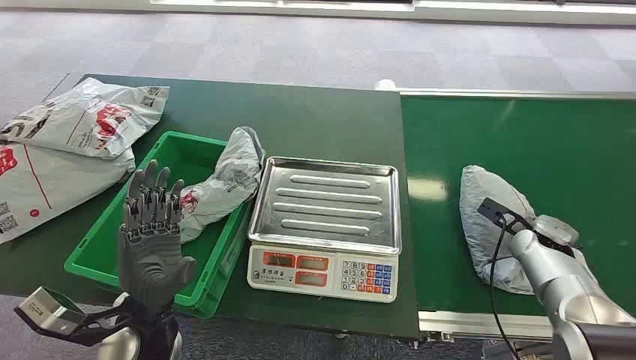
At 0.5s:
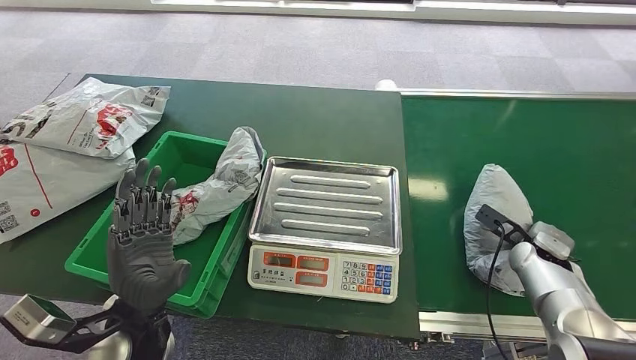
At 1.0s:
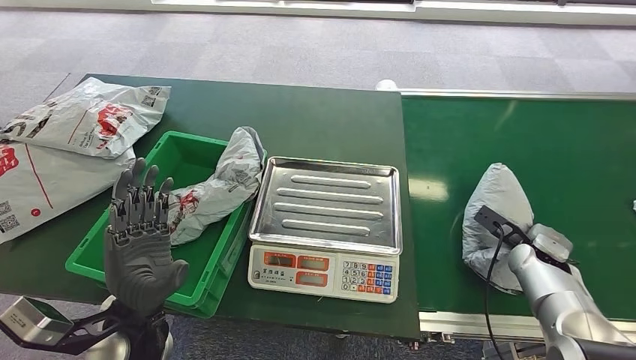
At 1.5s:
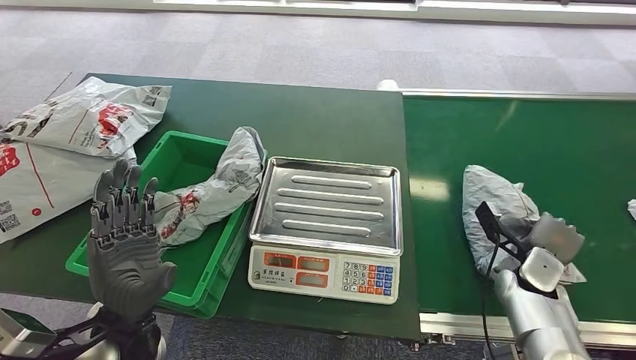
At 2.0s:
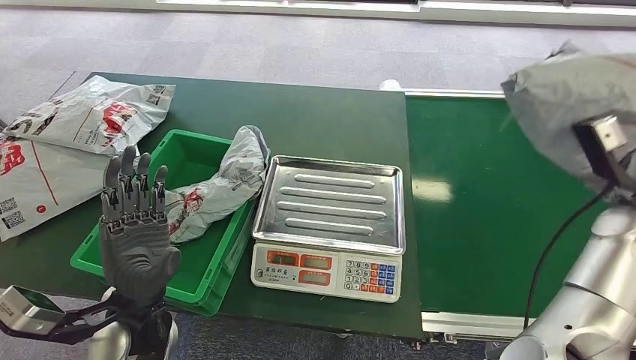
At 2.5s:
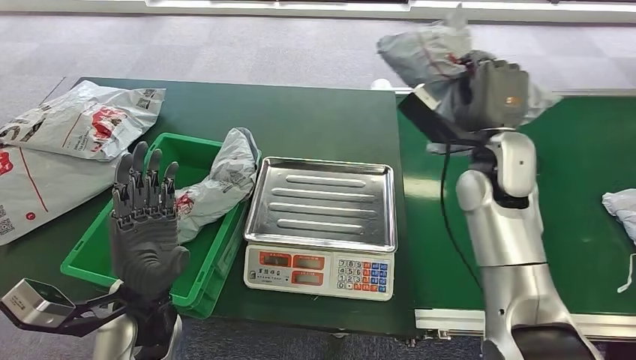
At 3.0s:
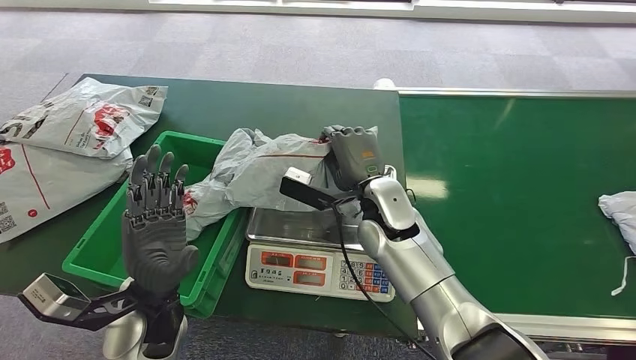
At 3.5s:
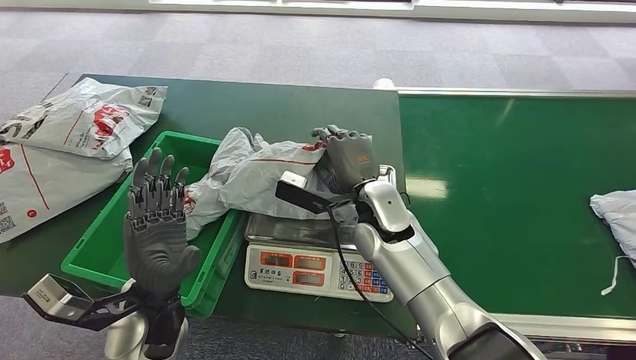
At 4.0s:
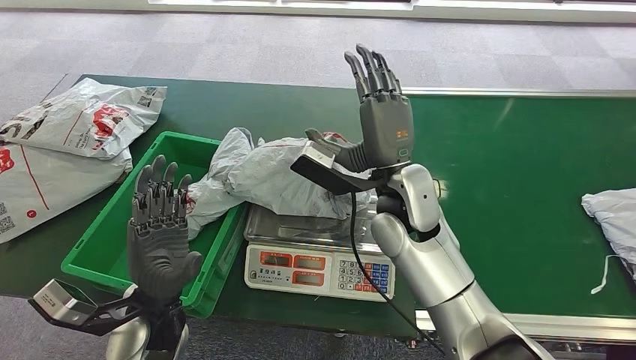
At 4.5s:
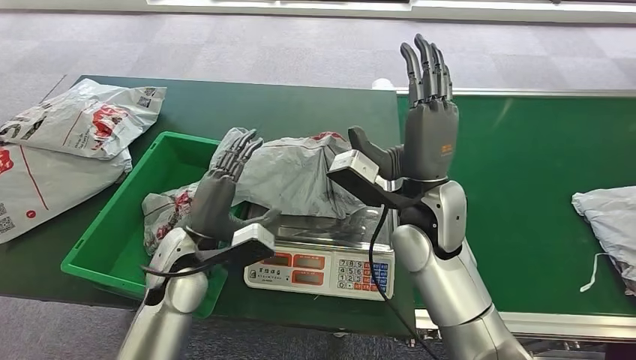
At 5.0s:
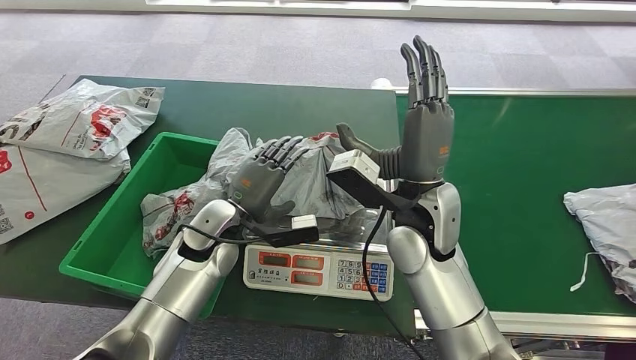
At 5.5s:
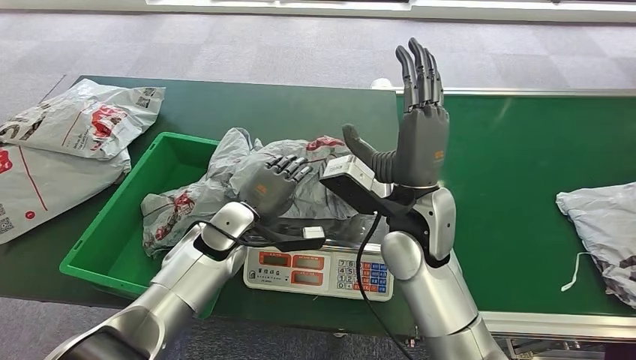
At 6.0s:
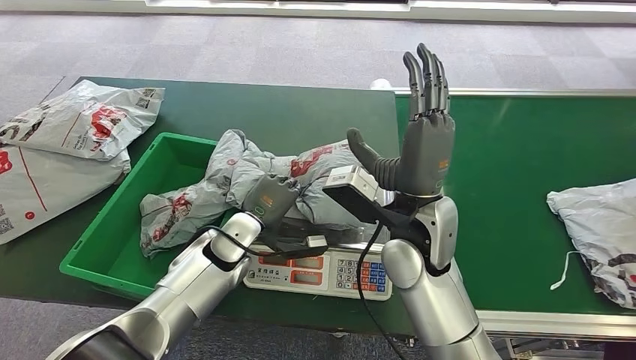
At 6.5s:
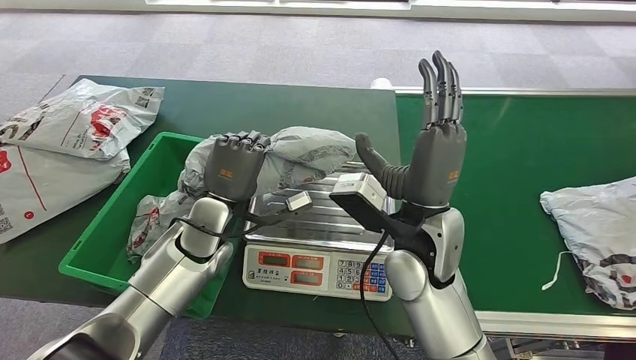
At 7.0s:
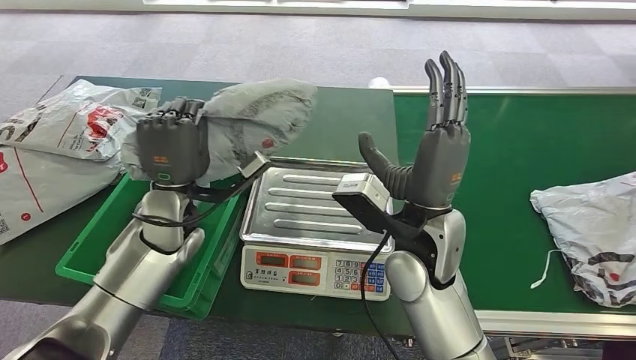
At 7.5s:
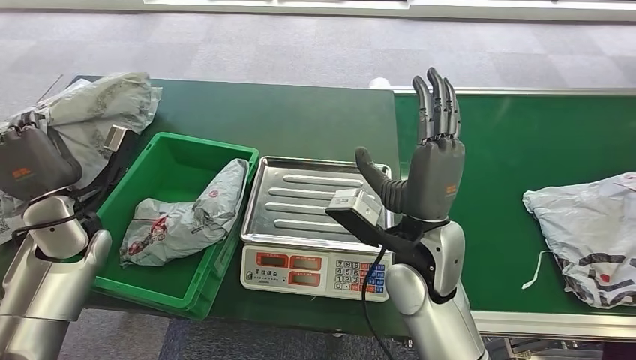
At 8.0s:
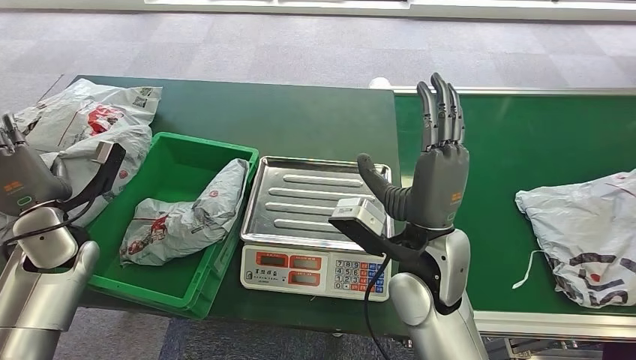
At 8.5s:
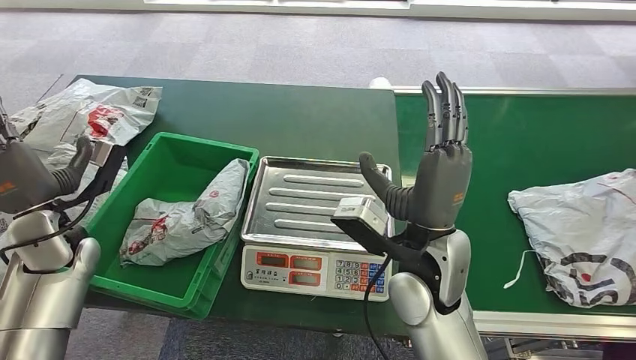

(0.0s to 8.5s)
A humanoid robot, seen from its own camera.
Step, 0.0s - 2.0s: Pick up the package from the conveyor belt.
Step, 2.5s - 4.0s: Place the package onto the inbound machine.
Step, 6.0s - 7.0s: Pick up the package from the inbound machine.
Step, 7.5s - 8.0s: Place the package into the parcel locker.
